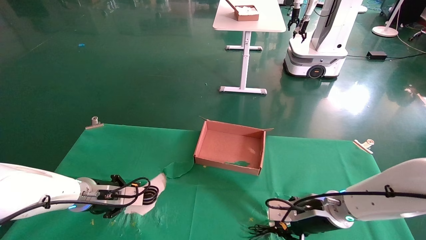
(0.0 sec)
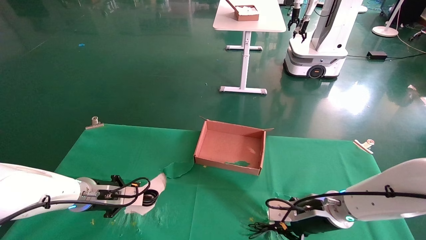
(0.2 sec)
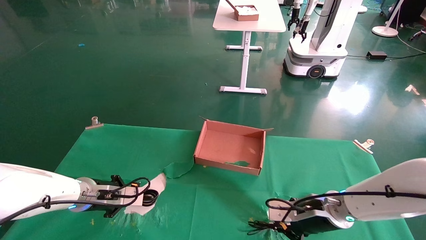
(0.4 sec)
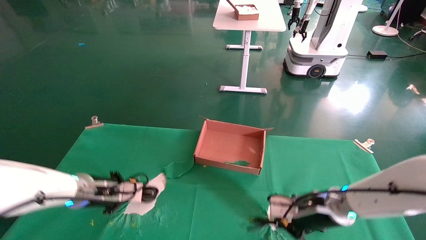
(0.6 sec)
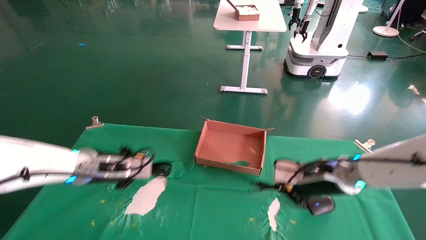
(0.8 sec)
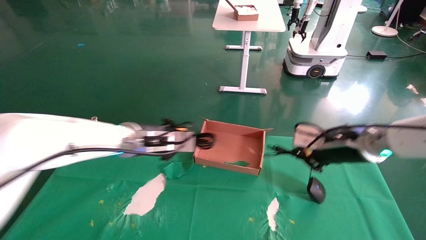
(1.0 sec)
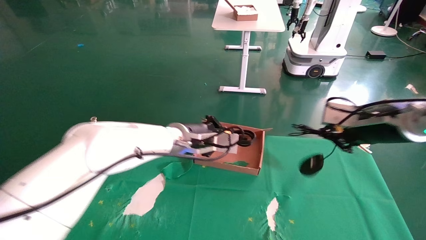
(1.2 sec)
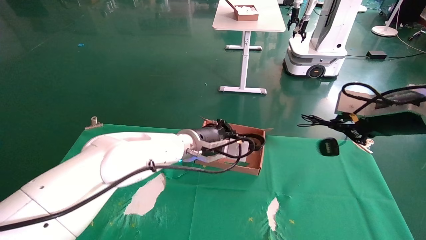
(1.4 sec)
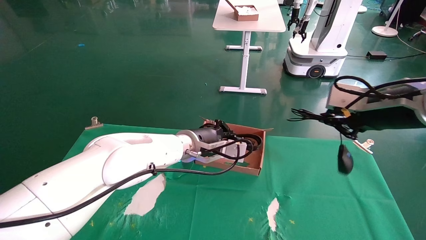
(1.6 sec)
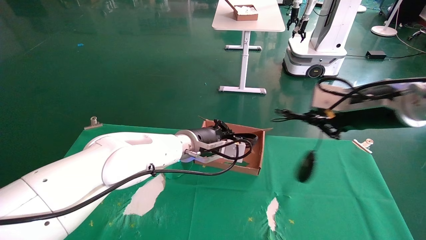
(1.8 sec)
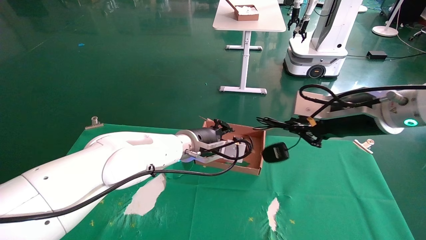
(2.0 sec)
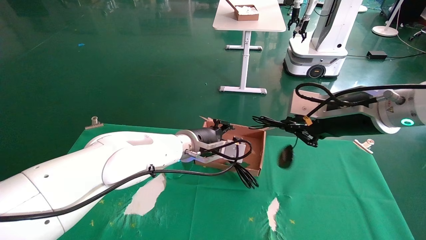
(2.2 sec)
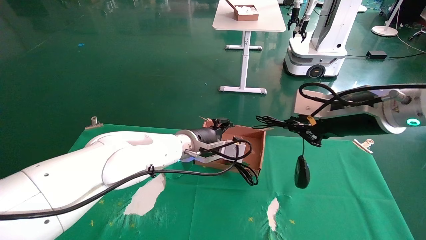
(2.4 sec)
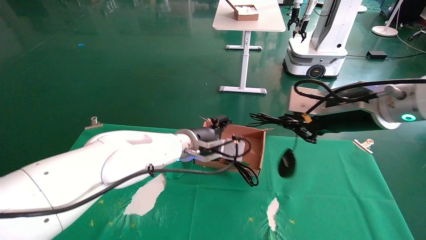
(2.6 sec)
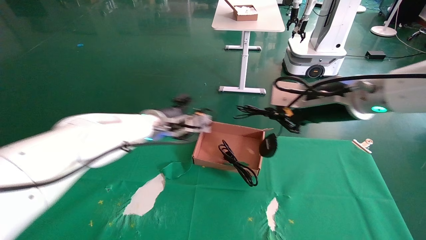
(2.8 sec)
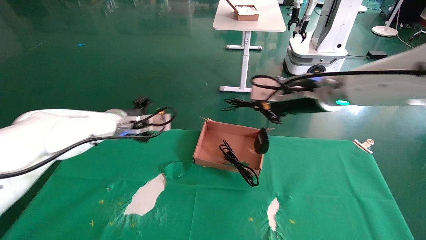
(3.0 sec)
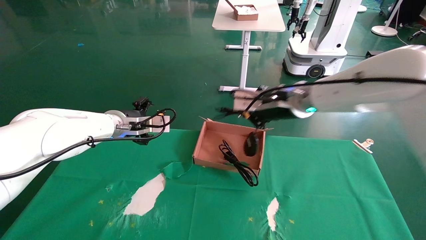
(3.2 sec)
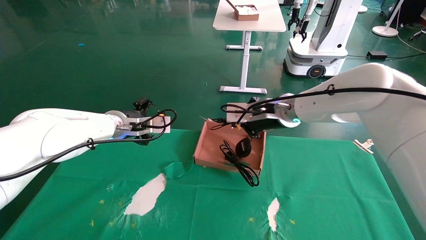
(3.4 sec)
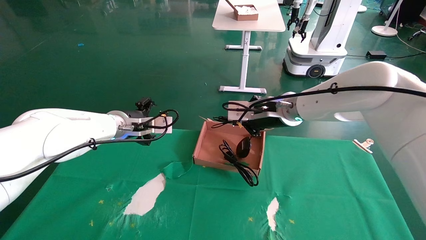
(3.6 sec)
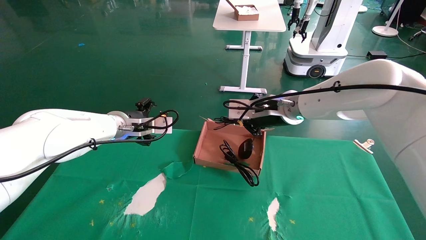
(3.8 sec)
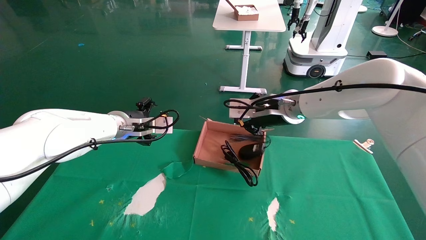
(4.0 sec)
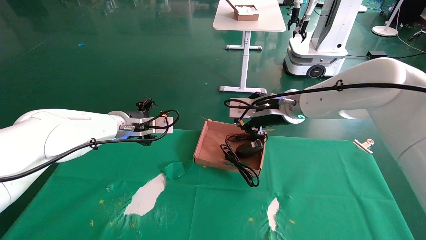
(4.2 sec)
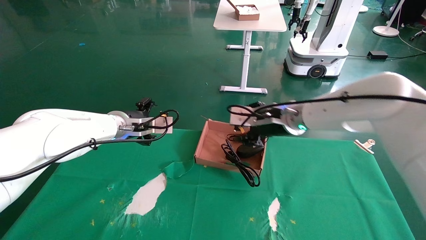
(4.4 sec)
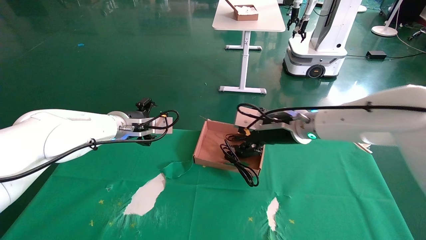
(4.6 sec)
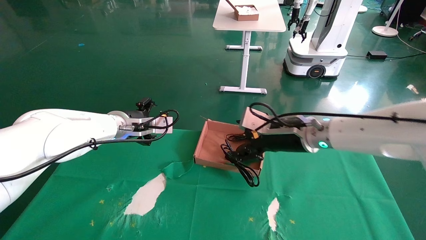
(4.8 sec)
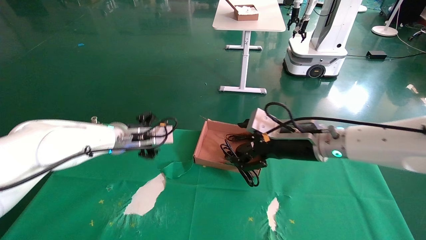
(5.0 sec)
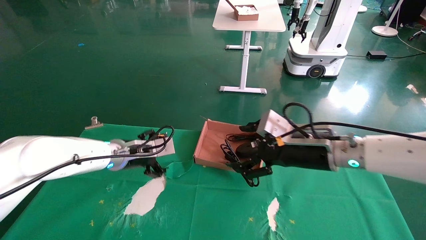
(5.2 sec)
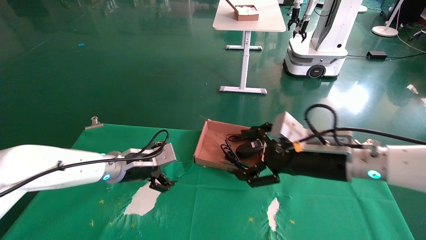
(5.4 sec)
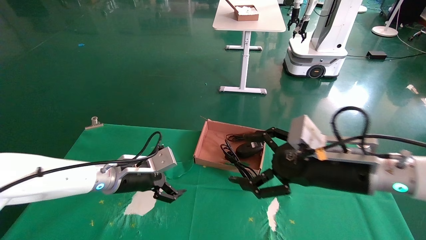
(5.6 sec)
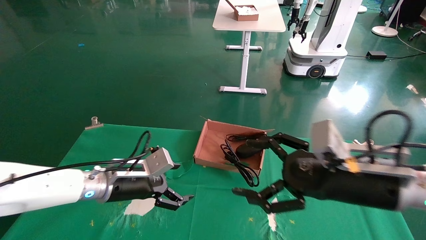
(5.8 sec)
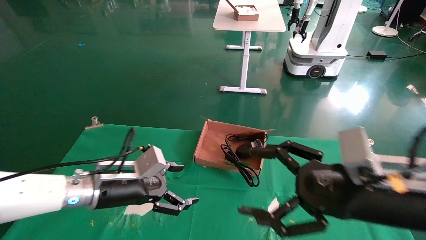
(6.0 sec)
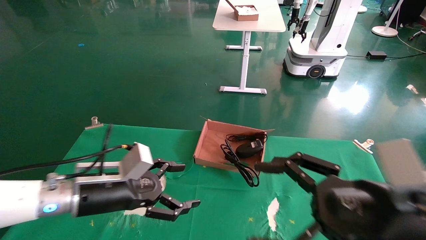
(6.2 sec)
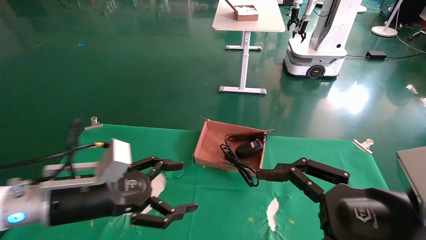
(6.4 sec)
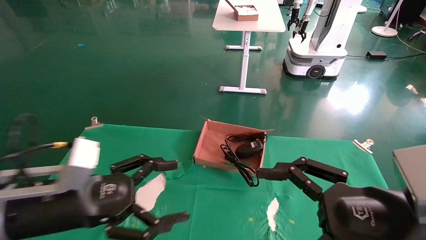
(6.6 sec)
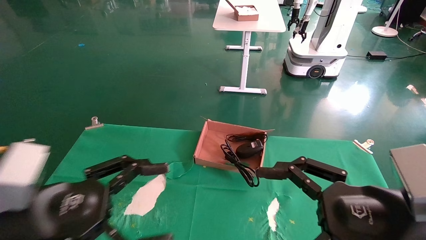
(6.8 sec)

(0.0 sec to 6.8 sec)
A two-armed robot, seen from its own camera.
Step, 0.4 sec - 4.6 sec: Place the mouse and power cord into the box.
0.0 sec - 1.4 sec: The left gripper heads to the right and upward, covering approximately 25 cm. The right gripper heads upward and to the right, covering approximately 25 cm.
1.4 sec - 2.8 sec: Both grippers move to the left, about 10 cm. The left gripper opens its fingers.
2.8 sec - 4.0 sec: The right gripper heads forward and to the left, covering approximately 10 cm. The left gripper is displaced to the left by some 5 cm.
4.0 sec - 5.4 sec: The right gripper is displaced backward, downward and to the right by about 15 cm, and opens its fingers, while the left gripper is displaced downward by approximately 10 cm.
5.4 sec - 6.8 sec: The left gripper travels backward by about 25 cm; the right gripper moves backward, about 15 cm.

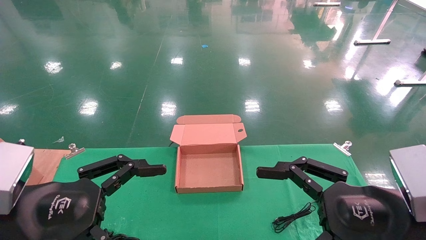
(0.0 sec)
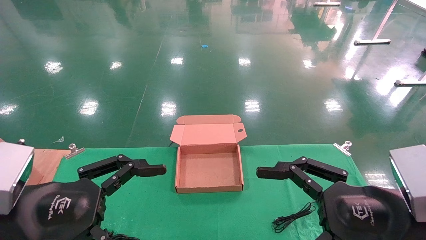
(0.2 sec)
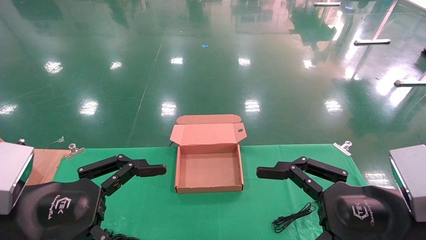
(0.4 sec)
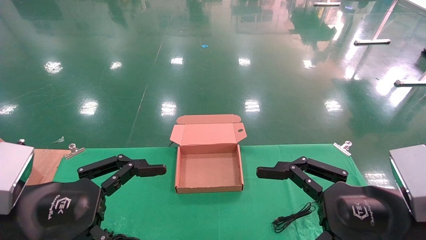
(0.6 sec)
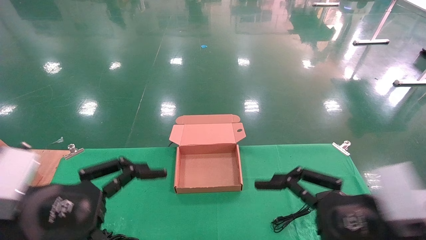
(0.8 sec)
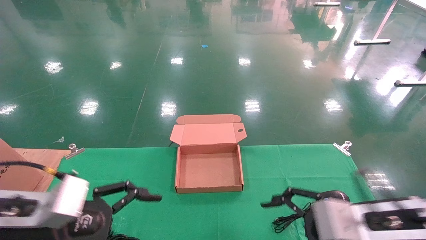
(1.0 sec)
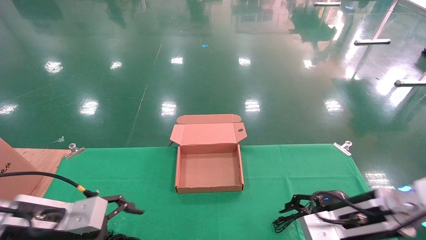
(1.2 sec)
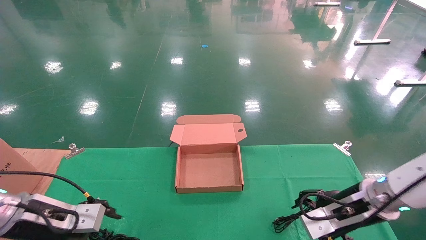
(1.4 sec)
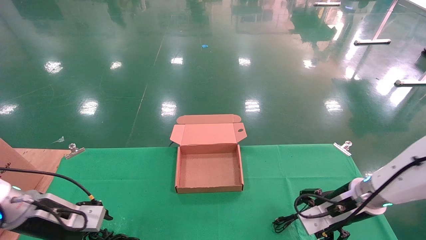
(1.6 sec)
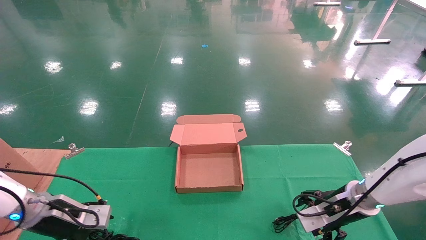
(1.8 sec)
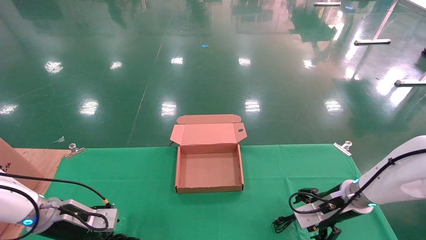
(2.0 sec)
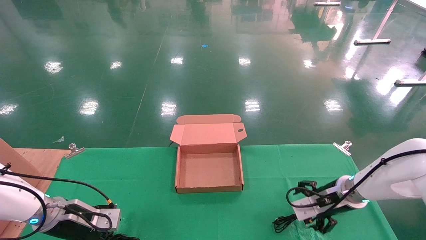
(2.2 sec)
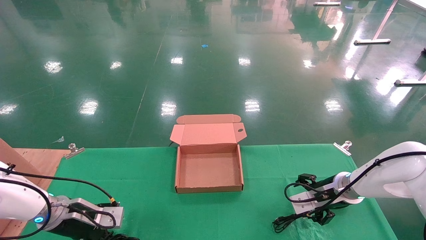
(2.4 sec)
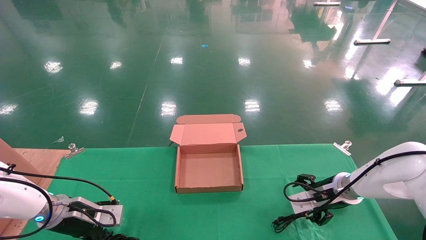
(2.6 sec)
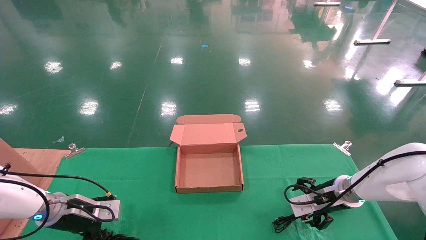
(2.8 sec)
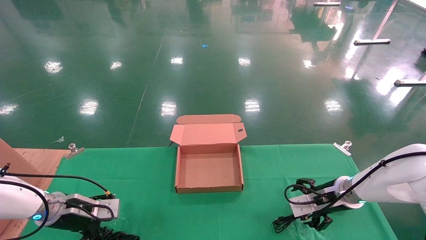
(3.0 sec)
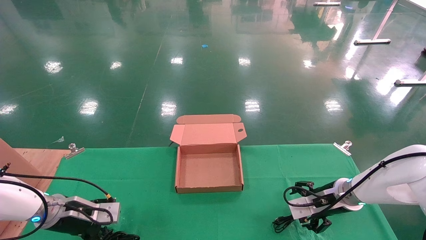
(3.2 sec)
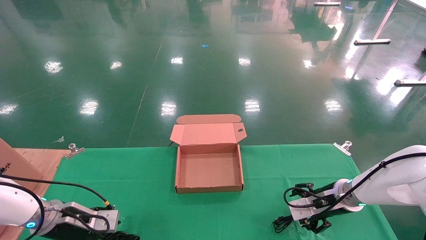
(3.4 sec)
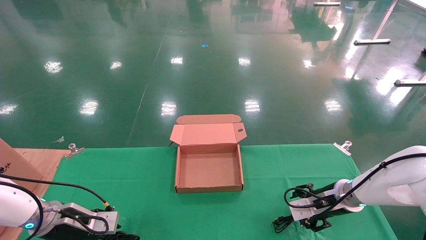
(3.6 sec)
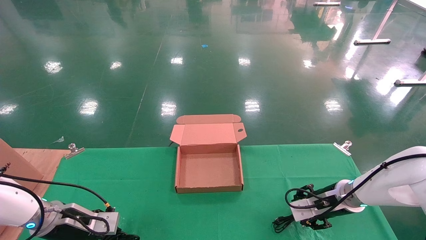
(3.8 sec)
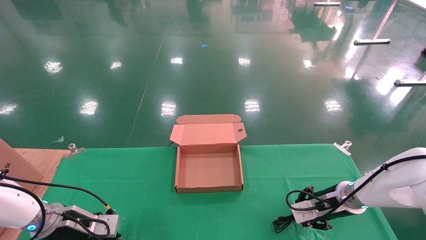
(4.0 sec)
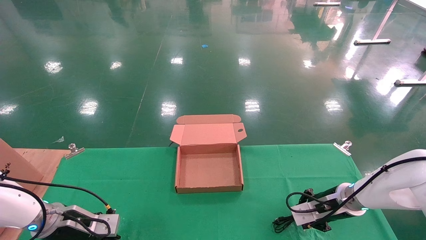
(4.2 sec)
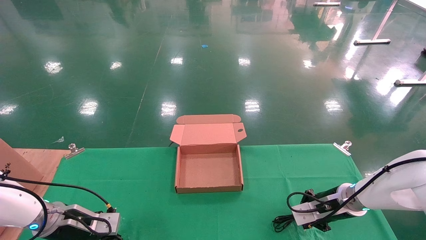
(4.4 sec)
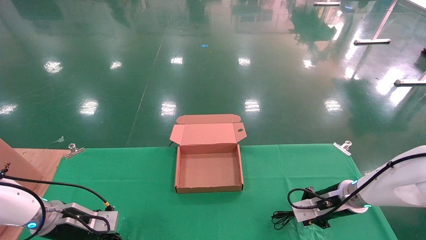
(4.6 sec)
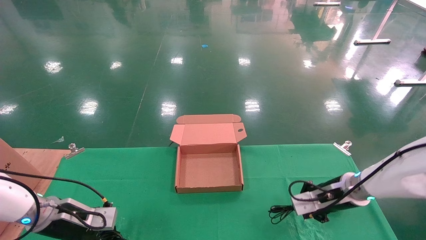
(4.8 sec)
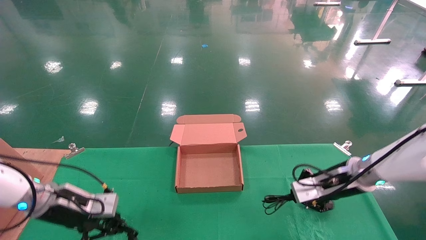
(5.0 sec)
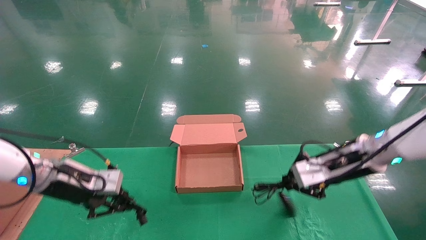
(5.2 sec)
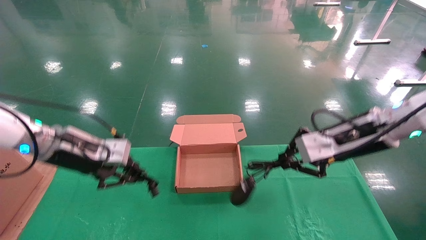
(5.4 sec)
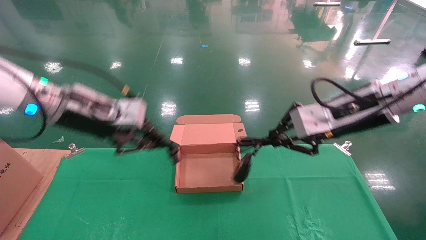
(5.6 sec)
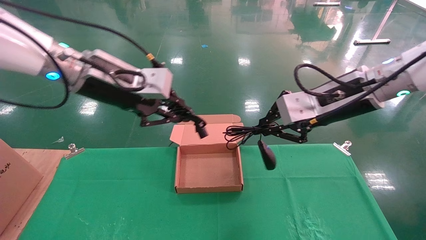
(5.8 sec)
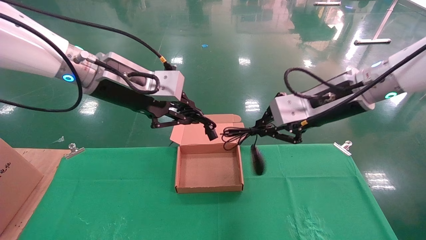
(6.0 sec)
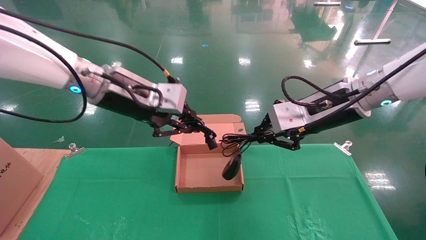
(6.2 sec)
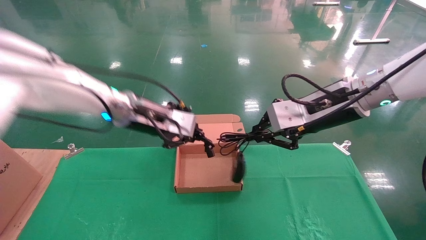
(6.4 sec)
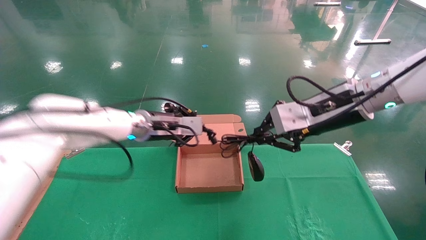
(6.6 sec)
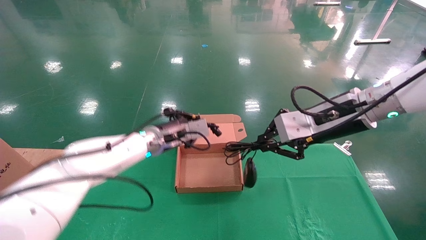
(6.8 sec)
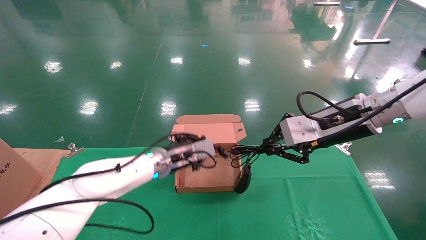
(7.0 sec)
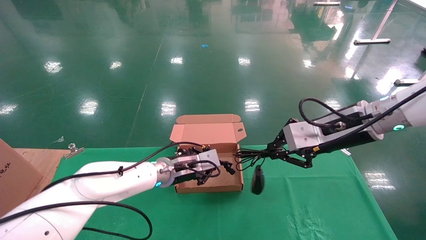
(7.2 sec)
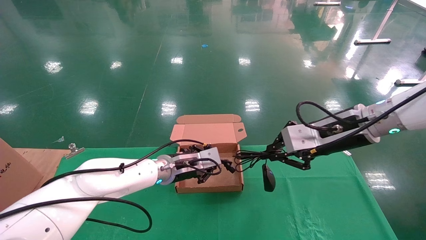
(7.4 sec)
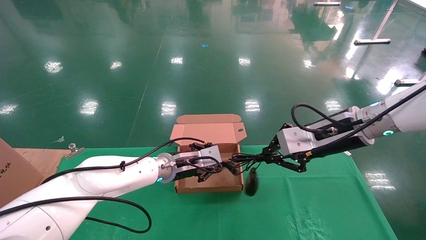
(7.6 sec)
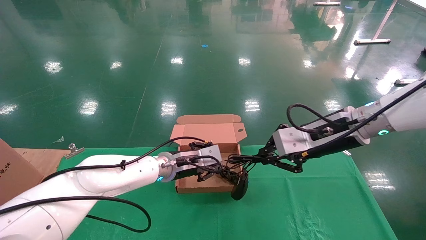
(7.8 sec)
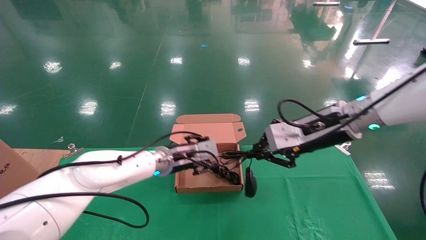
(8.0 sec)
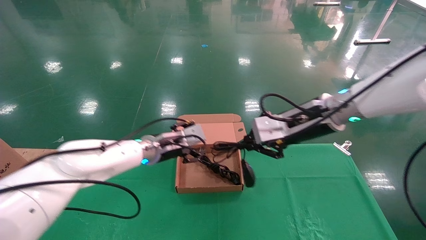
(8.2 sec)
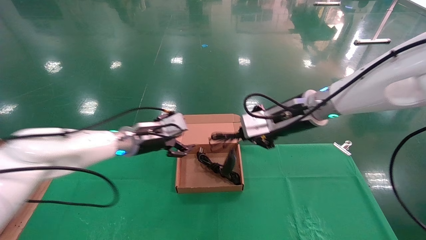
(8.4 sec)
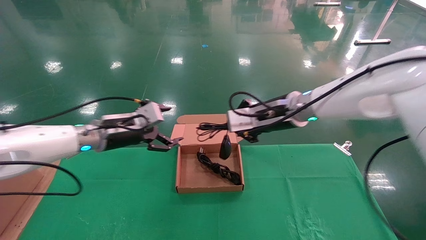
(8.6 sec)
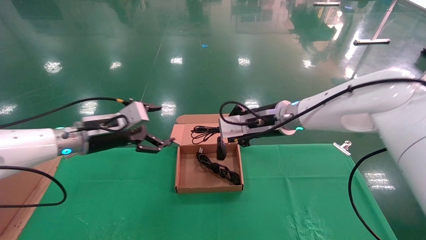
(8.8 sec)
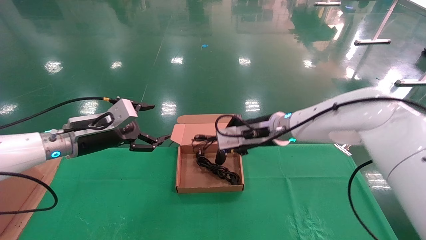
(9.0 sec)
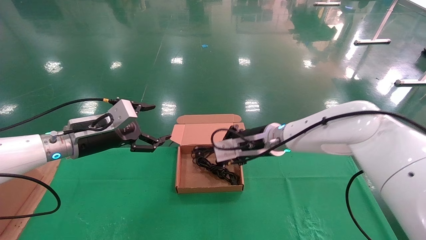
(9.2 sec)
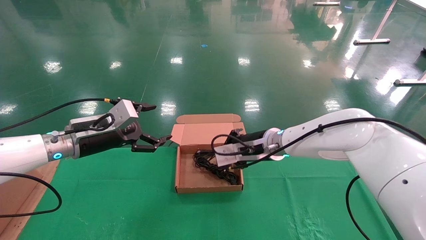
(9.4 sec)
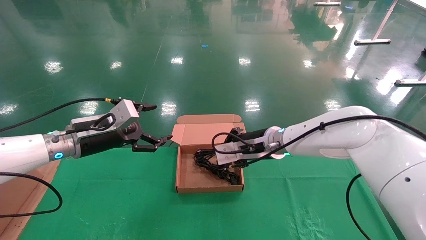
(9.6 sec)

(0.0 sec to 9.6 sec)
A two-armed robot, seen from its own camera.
Step, 1.8 sec - 5.0 sec: Grab and lift both the mouse and power cord from the accessory packaging area at the same time.
0.0 sec - 1.6 sec: The left gripper shifts approximately 20 cm forward, downward and to the left. The right gripper heads forward and downward, covering roughly 20 cm.
1.6 sec - 3.2 sec: The left gripper ends up about 5 cm from where it was; the right gripper is displaced forward by some 5 cm.
3.2 sec - 4.8 sec: The right gripper closes up; the left gripper closes.
4.8 sec - 6.4 sec: The right gripper is displaced upward by some 20 cm, while the left gripper goes some 30 cm upward and to the right.
6.4 sec - 8.0 sec: The left gripper goes some 15 cm downward, and opens its fingers.
8.0 sec - 9.6 sec: The right gripper shifts approximately 15 cm to the left, downward and forward, while the left gripper travels to the left and backward by about 15 cm, and opens its fingers.
